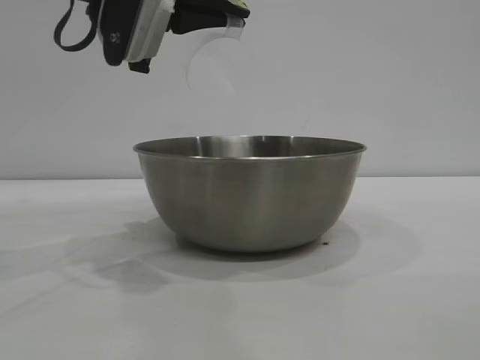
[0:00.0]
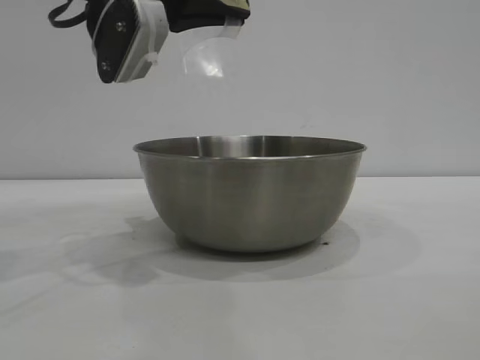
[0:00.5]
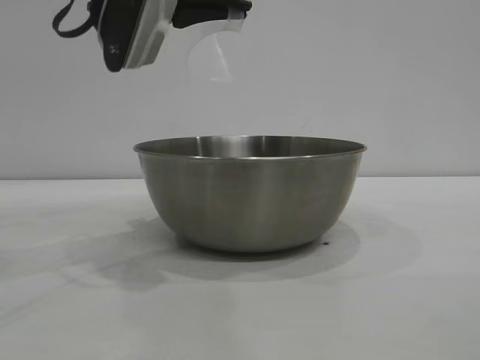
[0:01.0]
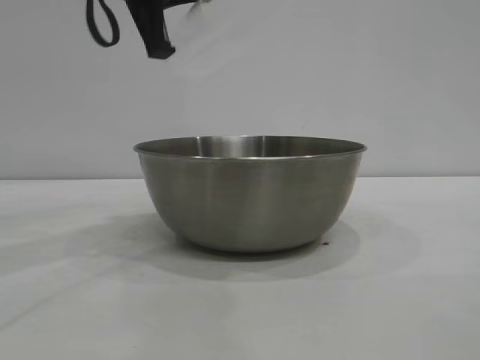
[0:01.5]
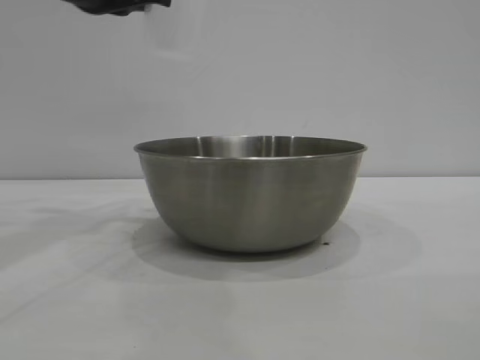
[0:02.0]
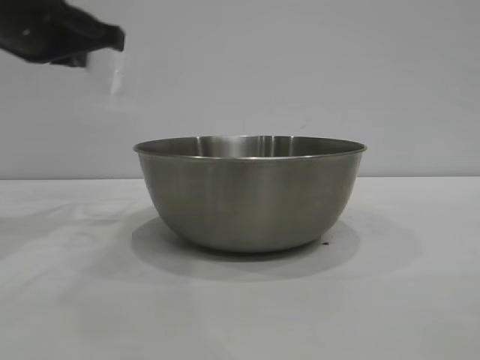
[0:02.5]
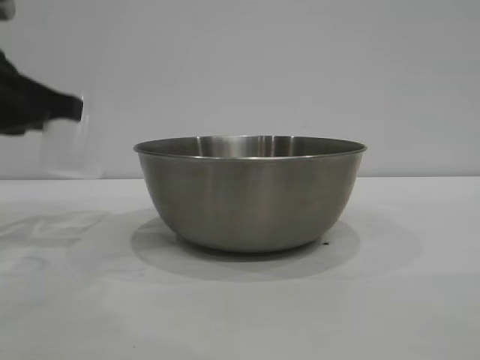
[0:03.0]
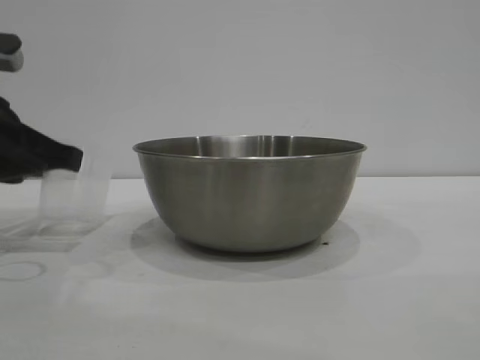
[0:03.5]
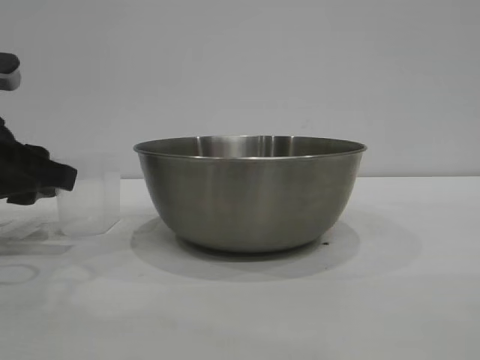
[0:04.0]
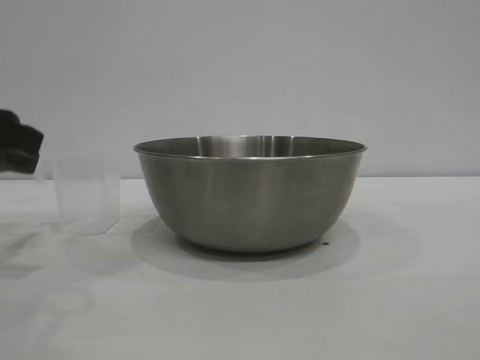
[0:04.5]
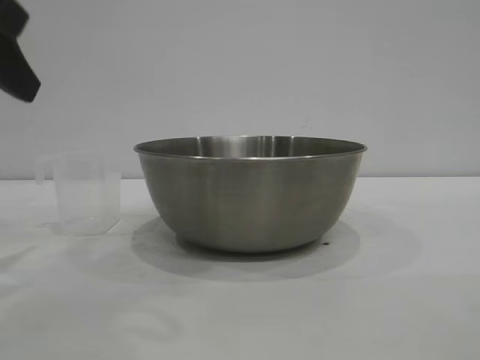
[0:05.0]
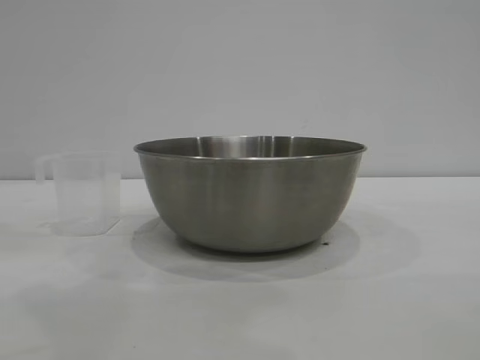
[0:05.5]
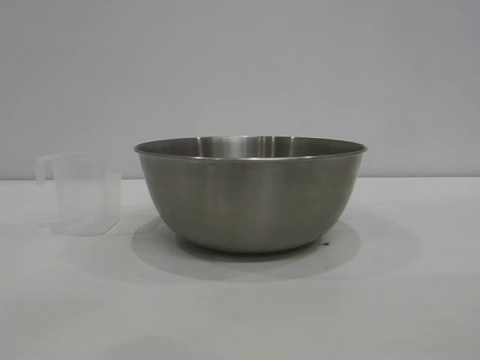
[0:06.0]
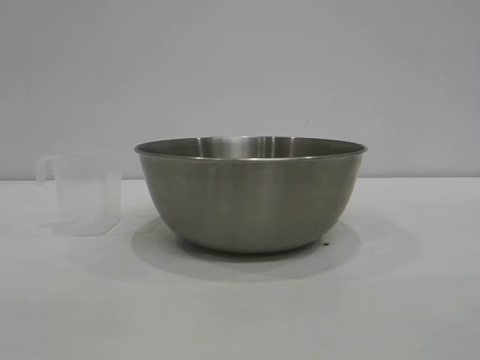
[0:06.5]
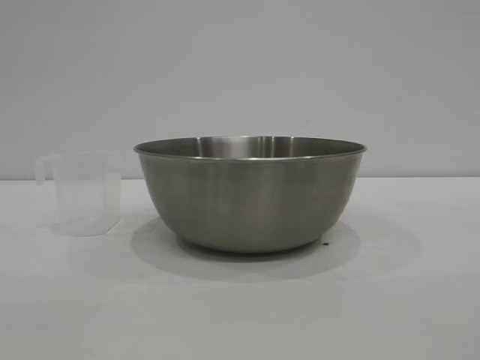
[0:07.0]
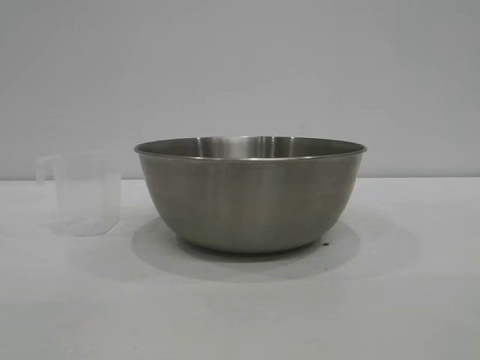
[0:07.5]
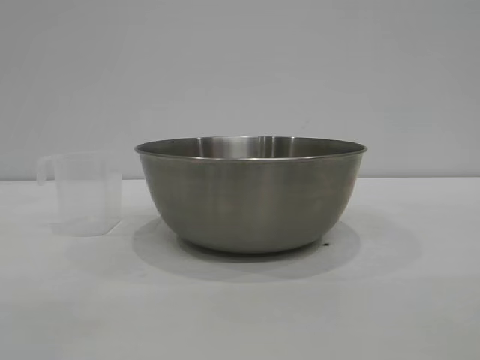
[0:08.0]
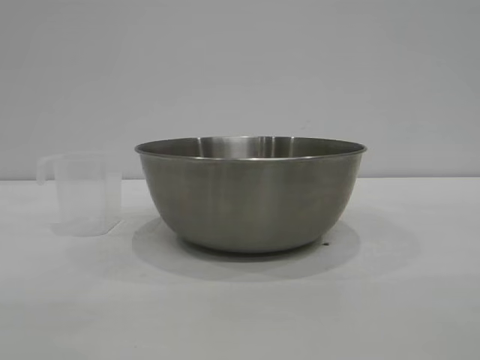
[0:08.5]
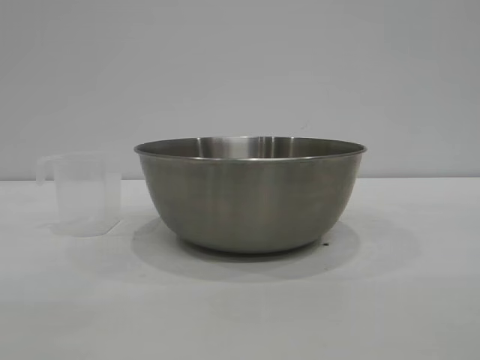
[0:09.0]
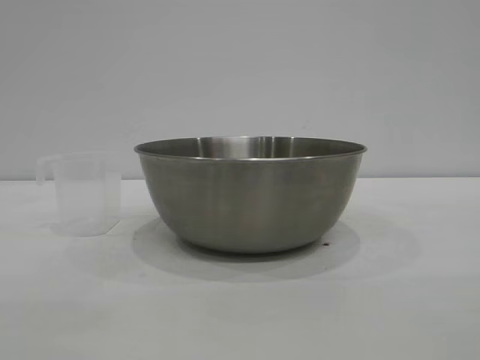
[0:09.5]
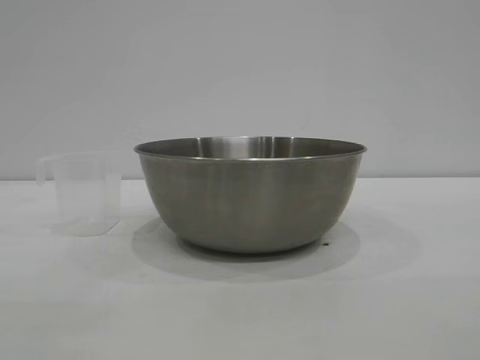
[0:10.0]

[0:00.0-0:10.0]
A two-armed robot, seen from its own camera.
Task of the whole recording: the right gripper grasp the rice container and place it in the center of the table, the left gripper grasp the rice scoop and pour the rice into the rice container.
Step, 0:00.5 to 0:04.5: Place the cup on the table with the left gripper.
